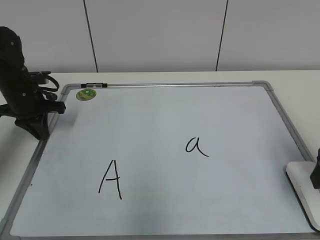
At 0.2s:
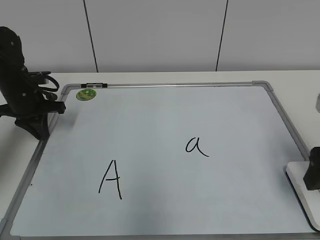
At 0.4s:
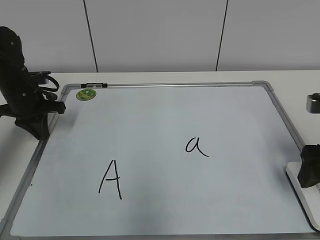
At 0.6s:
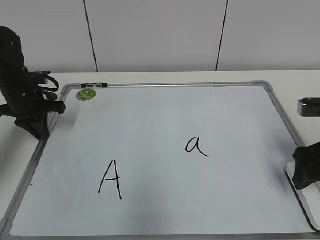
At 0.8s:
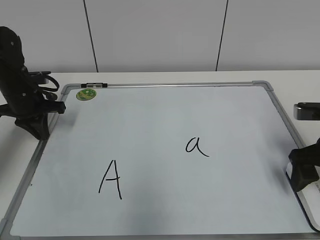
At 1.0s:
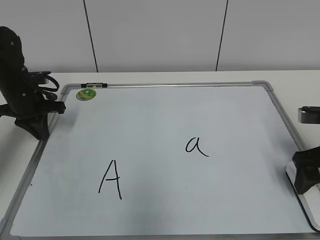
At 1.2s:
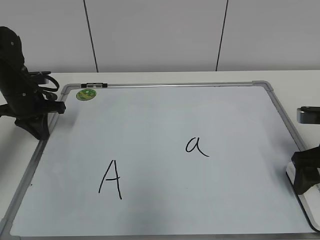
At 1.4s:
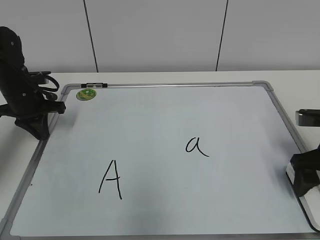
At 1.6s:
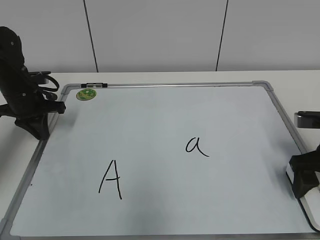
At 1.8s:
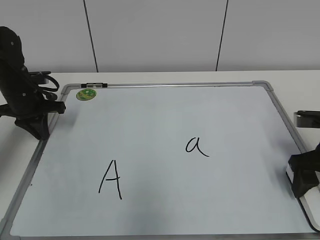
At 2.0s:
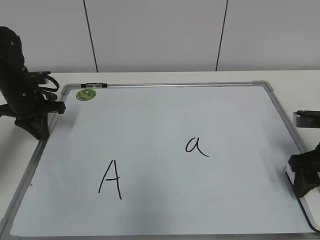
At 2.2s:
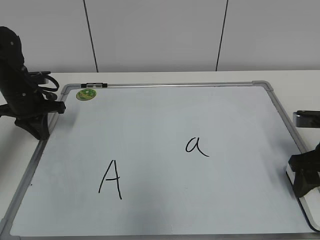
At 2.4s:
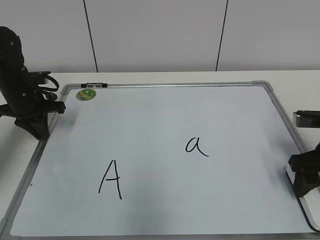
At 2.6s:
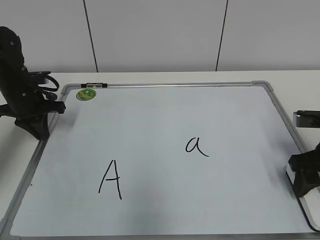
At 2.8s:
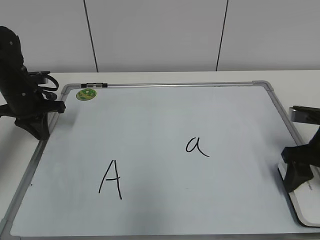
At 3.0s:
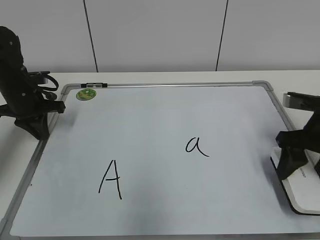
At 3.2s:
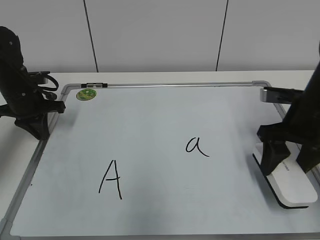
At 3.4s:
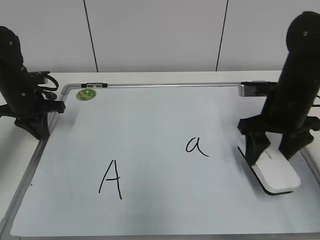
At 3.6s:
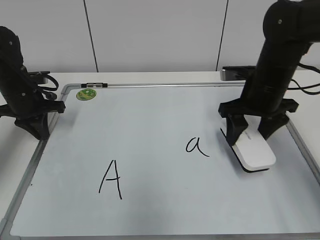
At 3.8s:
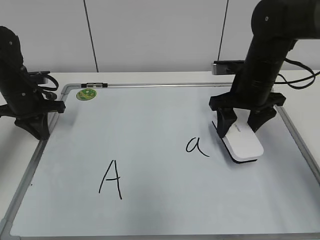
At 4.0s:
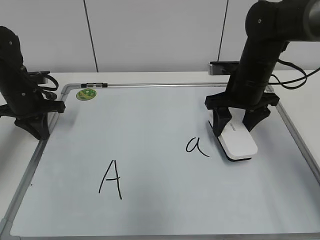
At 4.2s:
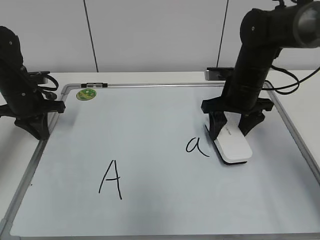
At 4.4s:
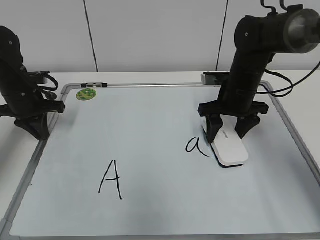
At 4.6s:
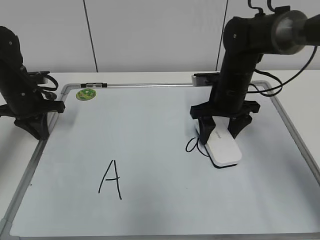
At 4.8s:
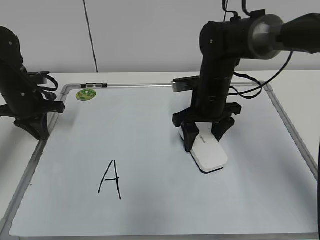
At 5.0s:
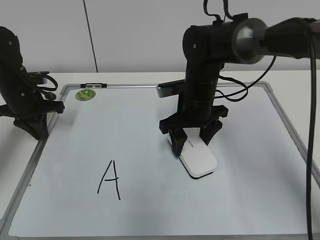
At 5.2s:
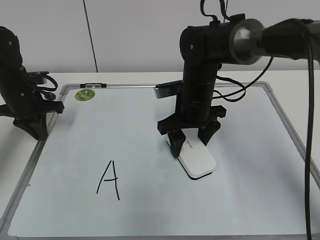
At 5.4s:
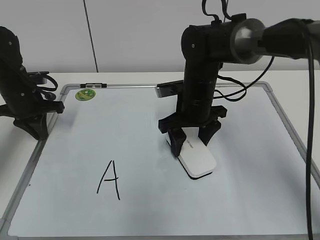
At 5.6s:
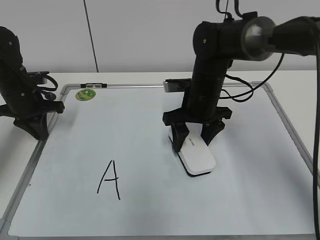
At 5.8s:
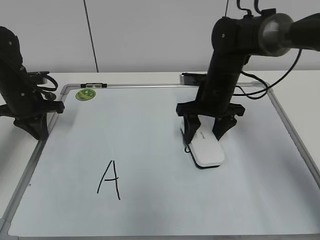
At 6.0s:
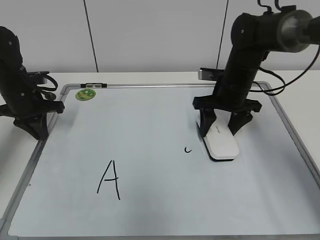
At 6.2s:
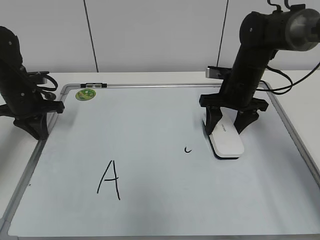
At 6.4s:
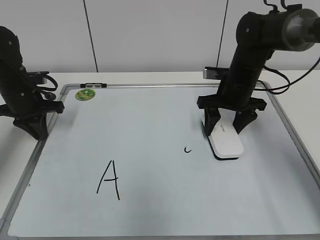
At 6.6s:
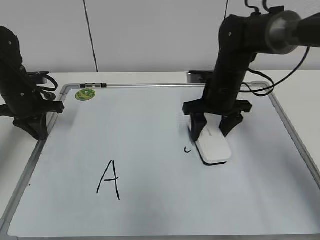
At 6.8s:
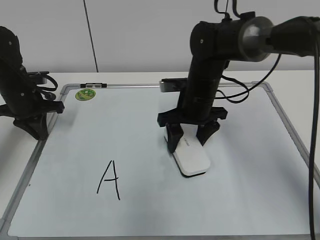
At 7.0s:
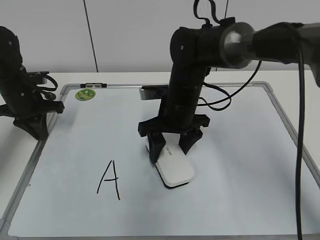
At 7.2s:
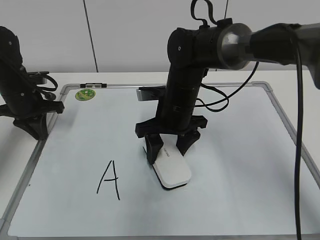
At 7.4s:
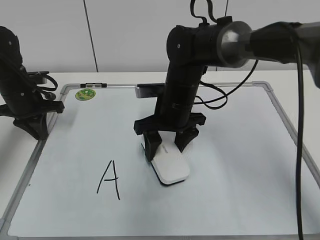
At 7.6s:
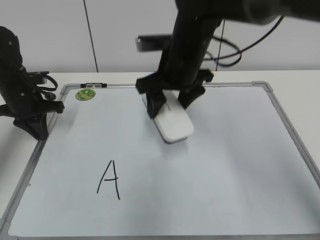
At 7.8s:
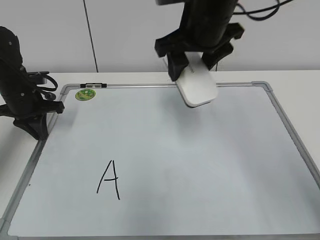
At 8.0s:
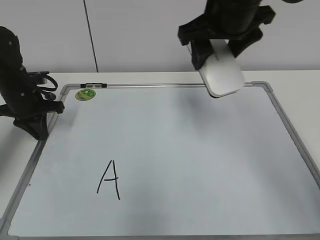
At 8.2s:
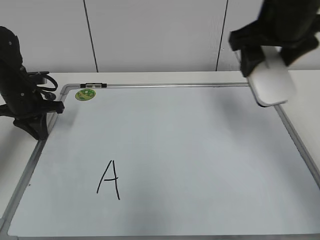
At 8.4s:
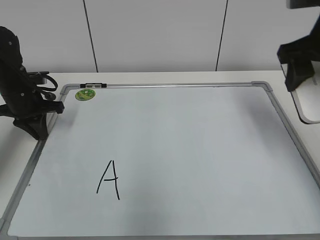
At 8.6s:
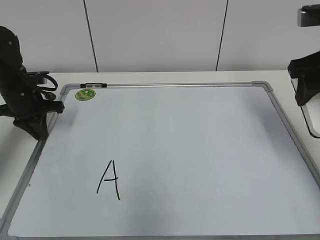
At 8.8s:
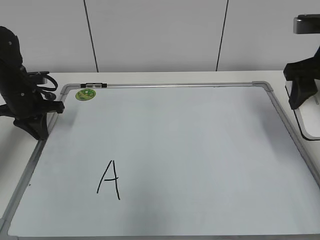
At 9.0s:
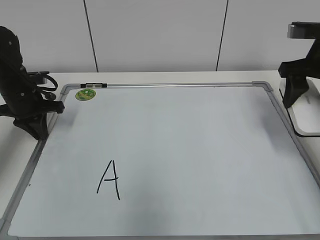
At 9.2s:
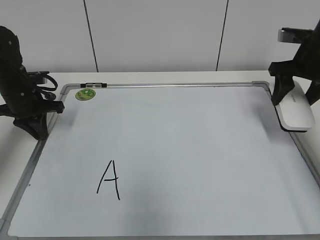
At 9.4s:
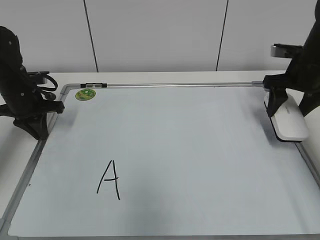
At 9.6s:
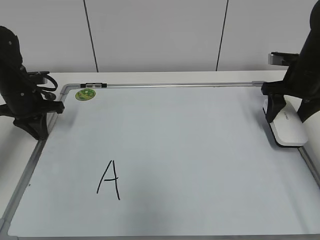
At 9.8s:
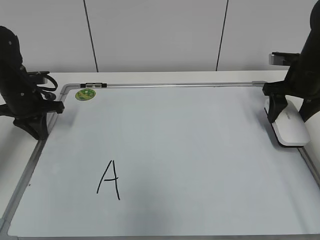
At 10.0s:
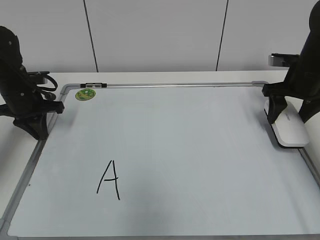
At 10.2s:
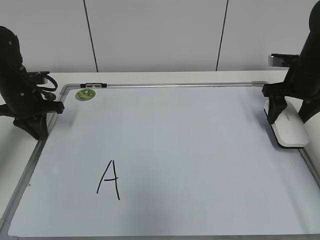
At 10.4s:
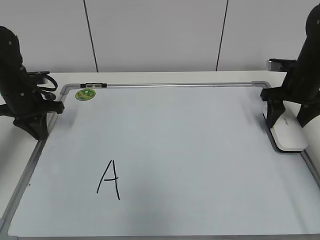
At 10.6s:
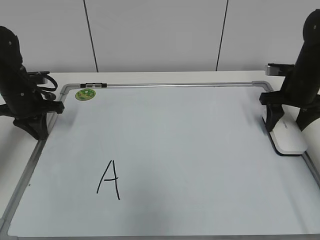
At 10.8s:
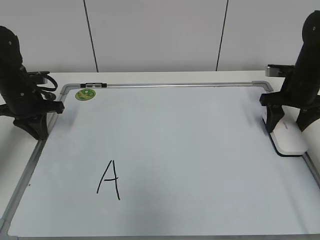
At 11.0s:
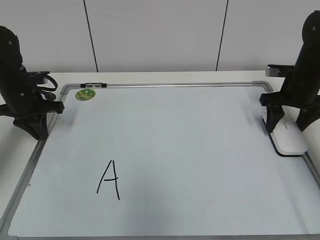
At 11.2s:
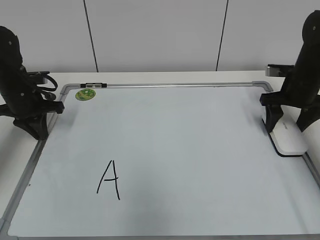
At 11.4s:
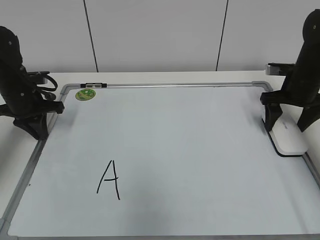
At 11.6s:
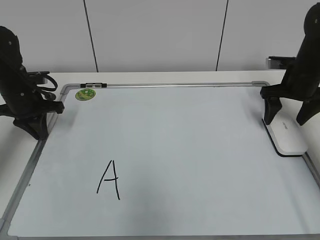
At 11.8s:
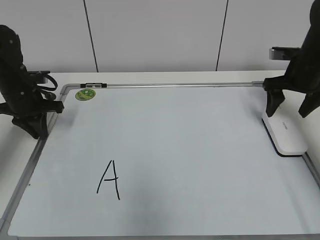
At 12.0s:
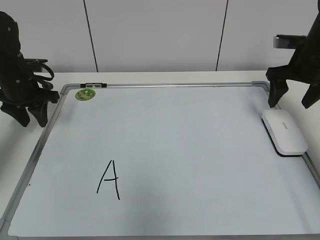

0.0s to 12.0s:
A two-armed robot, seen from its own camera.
Task of the whole recording: pick up the eraser on the blackboard and erase the letter "a".
Step, 0.0s to 2.4s: Grab the eraser with your right hand.
Step, 2.6s to 7.2s: Erase the letter a with your right hand.
Step, 7.4s to 11.4s: Put down the eraser with your right hand.
0.0s to 1.6s: The right gripper moves downward and forward, roughly 10 cm.
1.6s to 3.0s: The right gripper closes its fingers.
3.0s to 4.4s: The right gripper travels forward and to the left by some 15 cm.
4.4s to 6.0s: The right gripper travels to the left and back again, roughly 10 cm each way.
6.0s to 7.6s: The right gripper moves to the left, upward and backward, about 15 cm.
7.6s to 9.0s: The right gripper heads to the right, covering about 25 cm.
9.0s to 10.4s: The right gripper shifts approximately 10 cm downward and forward.
10.4s to 12.0s: The left gripper opens its fingers. The right gripper opens its fingers.

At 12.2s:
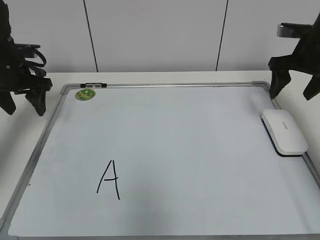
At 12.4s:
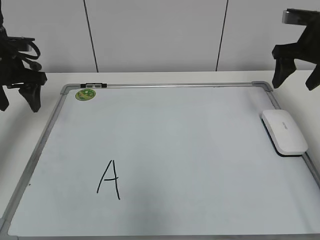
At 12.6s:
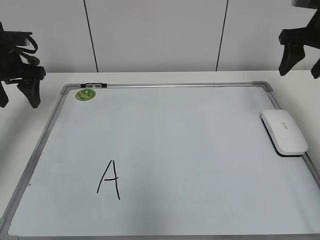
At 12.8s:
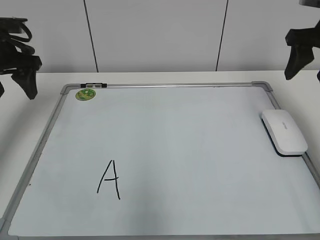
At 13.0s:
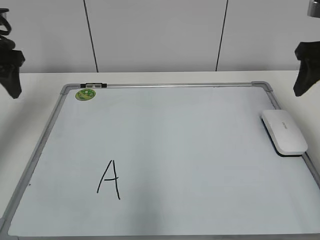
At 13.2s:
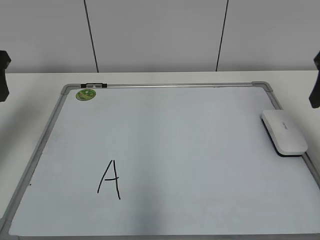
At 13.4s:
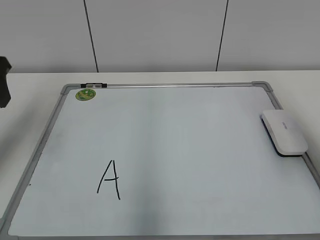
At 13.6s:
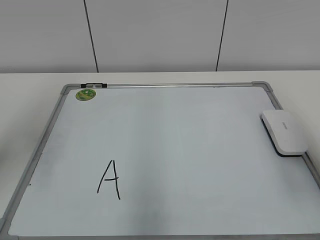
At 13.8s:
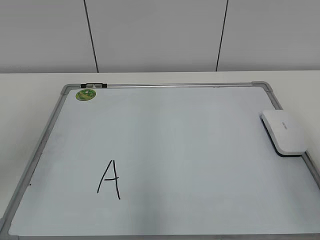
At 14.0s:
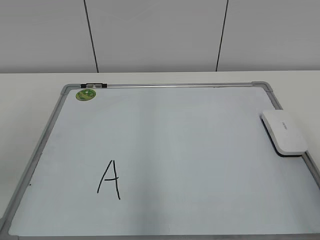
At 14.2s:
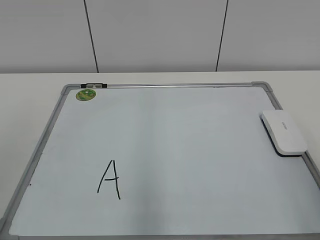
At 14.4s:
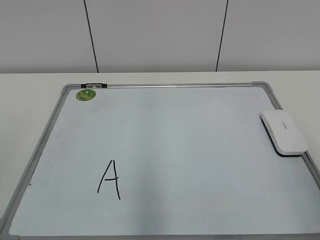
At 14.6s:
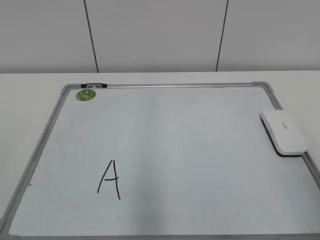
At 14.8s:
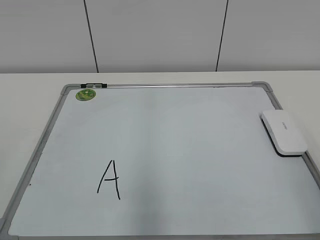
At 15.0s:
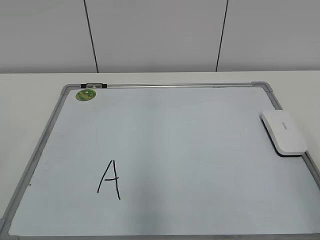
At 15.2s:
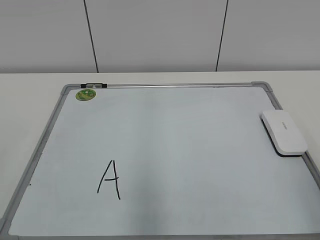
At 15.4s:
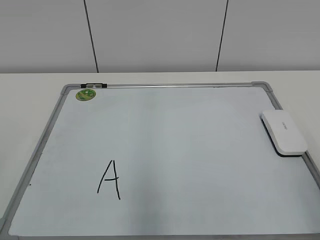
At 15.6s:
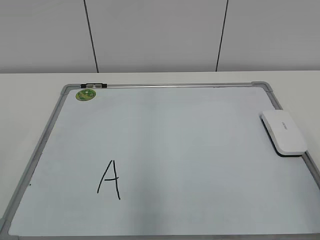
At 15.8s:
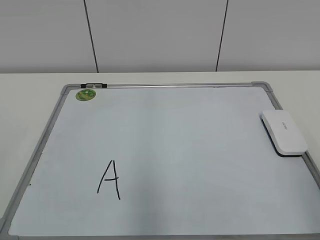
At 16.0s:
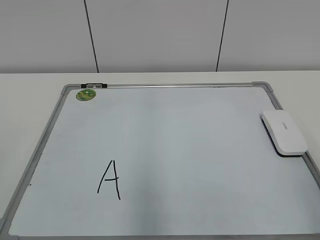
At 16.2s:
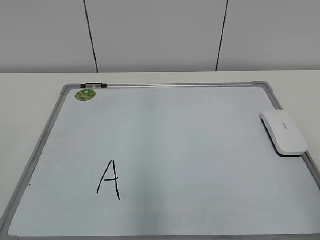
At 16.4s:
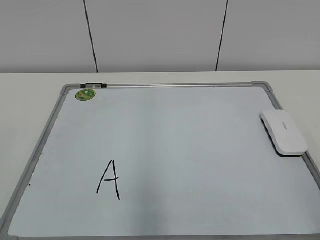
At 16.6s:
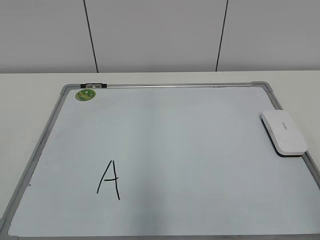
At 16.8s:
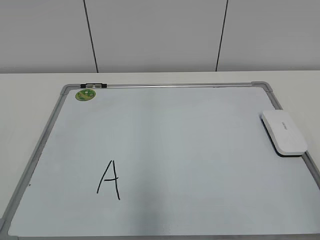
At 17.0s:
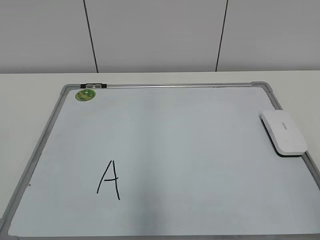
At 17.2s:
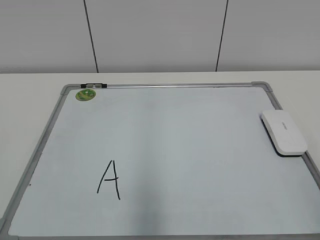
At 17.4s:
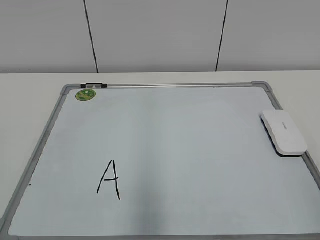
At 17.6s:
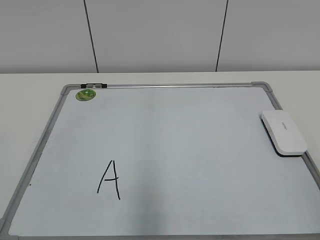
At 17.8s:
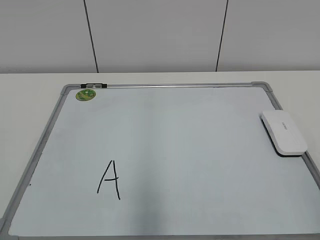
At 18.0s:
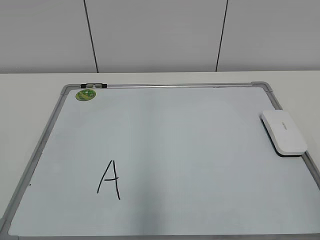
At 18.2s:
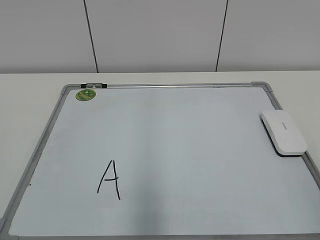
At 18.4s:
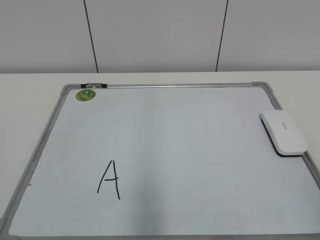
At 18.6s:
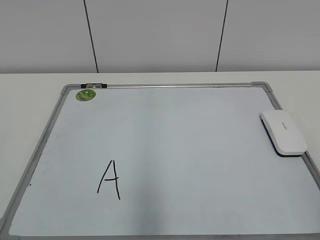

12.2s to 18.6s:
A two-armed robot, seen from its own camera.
Task of the whole recording: pick up the eraser on the blackboard and erase the letter "a".
12.2s to 13.8s: The right gripper goes approximately 30 cm backward, and closes up. Meanwhile the left gripper heads backward and upward, covering roughly 30 cm.
13.8s to 15.4s: The left gripper travels backward by about 15 cm.
17.0s to 18.6s: The two grippers keep their place.

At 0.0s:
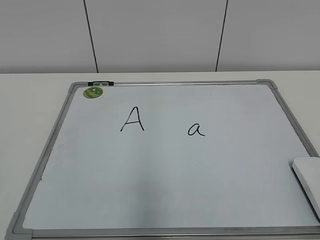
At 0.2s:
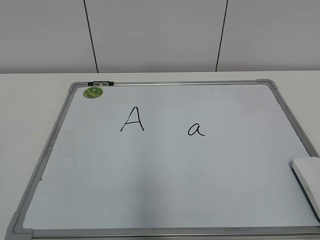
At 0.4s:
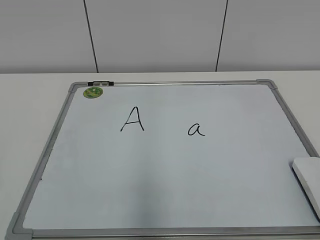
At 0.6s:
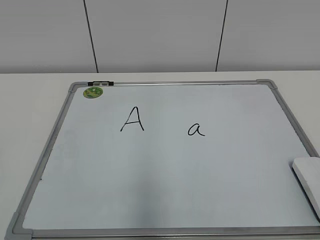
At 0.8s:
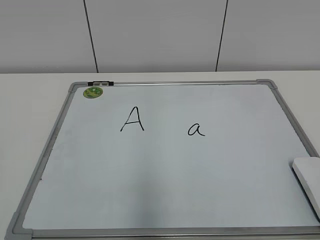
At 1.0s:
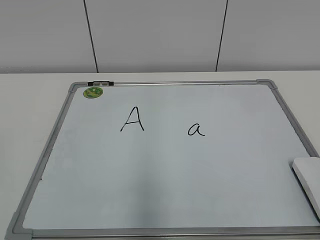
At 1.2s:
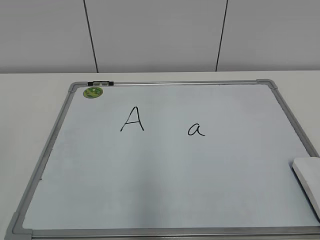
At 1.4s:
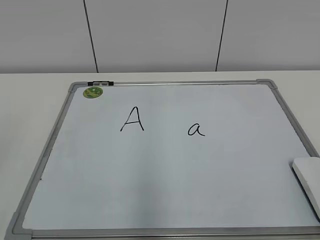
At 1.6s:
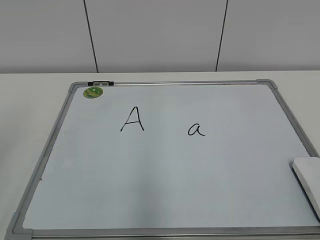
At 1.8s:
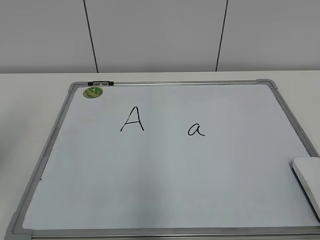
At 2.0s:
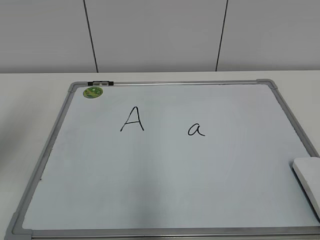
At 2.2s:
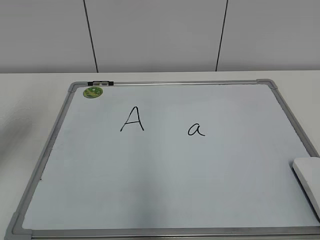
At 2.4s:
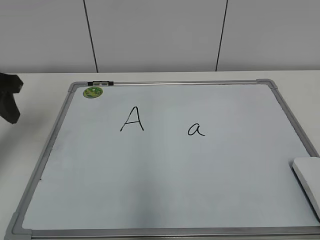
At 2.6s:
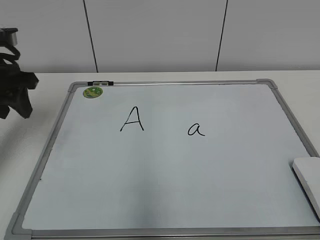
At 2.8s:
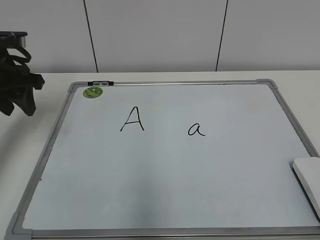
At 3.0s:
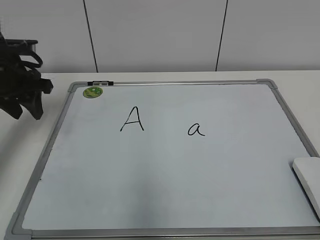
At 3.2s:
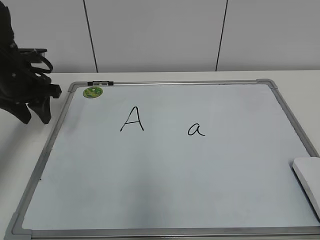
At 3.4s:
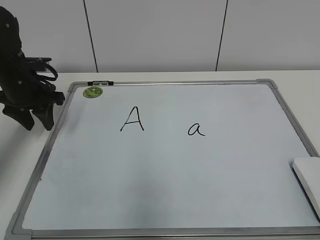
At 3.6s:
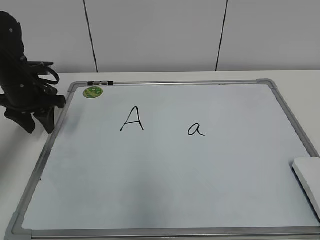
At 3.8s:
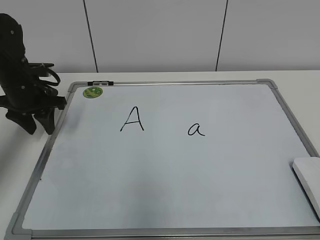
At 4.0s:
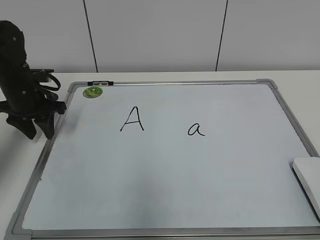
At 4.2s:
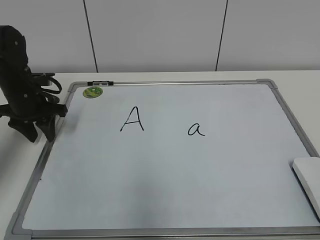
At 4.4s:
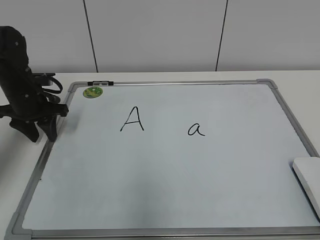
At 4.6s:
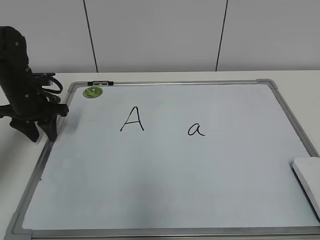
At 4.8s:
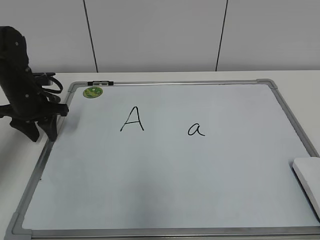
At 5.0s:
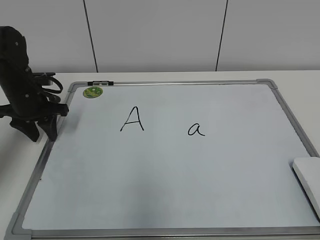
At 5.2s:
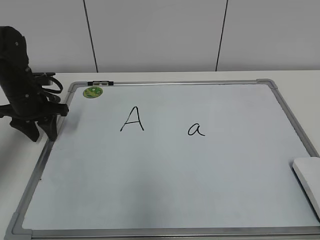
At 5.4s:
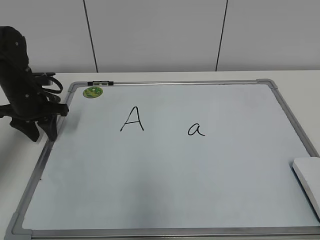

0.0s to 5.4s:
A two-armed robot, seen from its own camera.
Task of the whole recording: pick up the eraser on the blackboard and erase the letter "a".
1.4s to 2.8s: The left gripper travels forward by roughly 30 cm.
2.8s to 4.0s: The left gripper moves downward and forward, roughly 10 cm.
4.0s to 5.4s: Both grippers stay about where they are.
